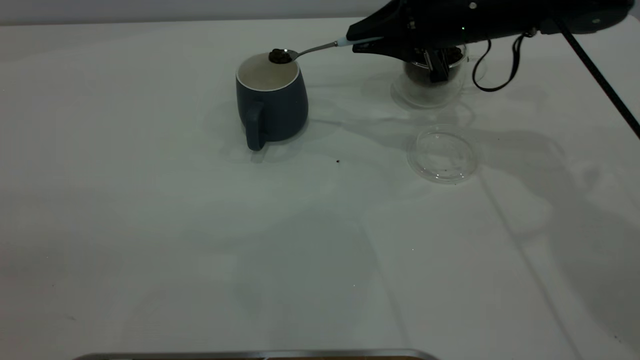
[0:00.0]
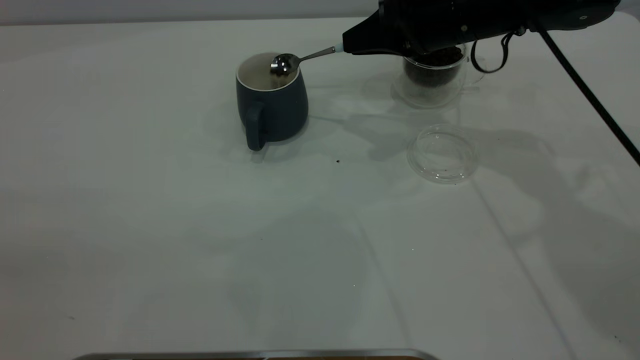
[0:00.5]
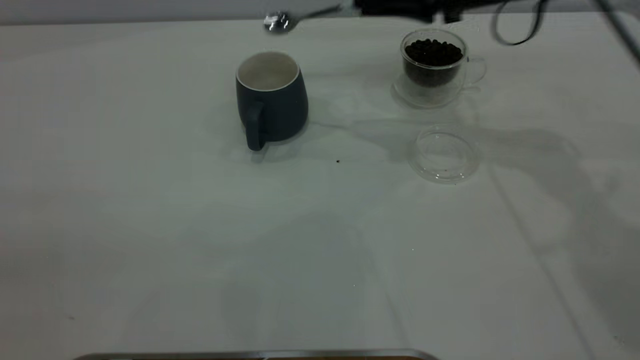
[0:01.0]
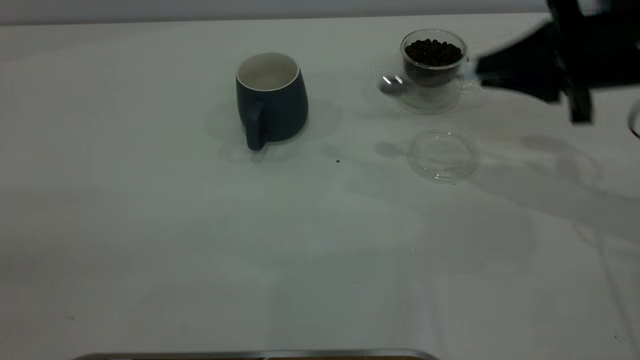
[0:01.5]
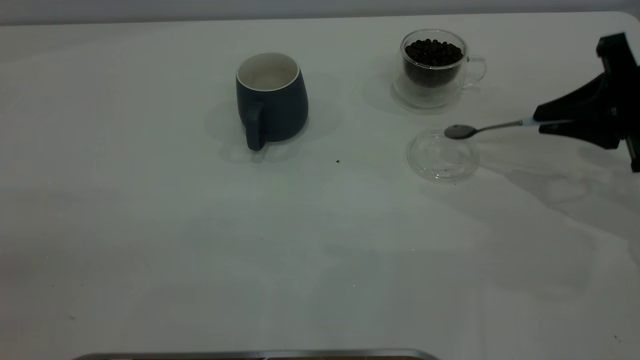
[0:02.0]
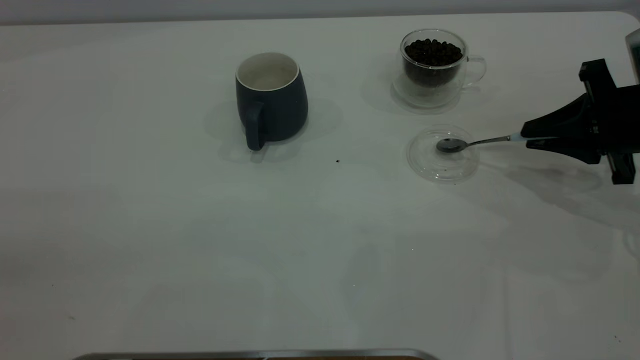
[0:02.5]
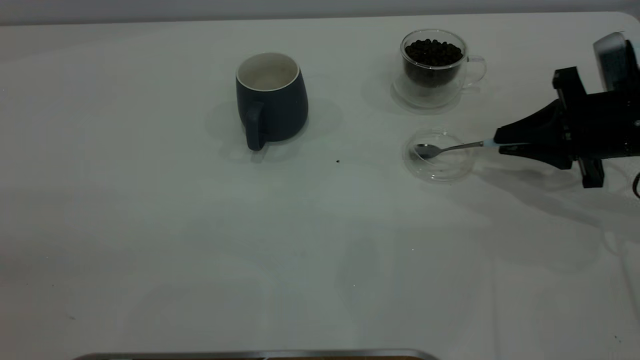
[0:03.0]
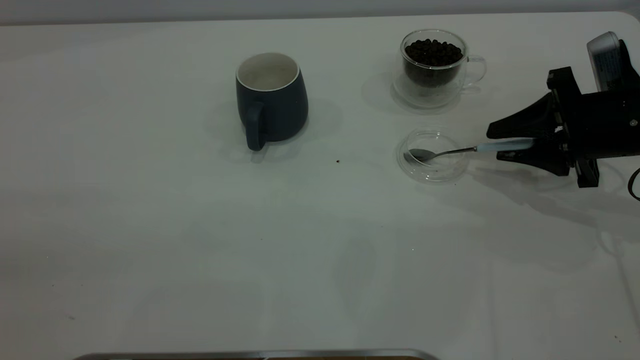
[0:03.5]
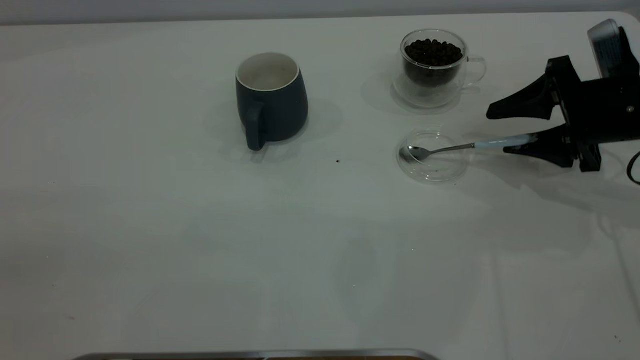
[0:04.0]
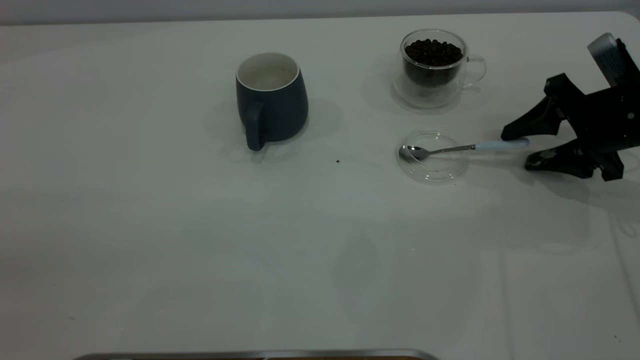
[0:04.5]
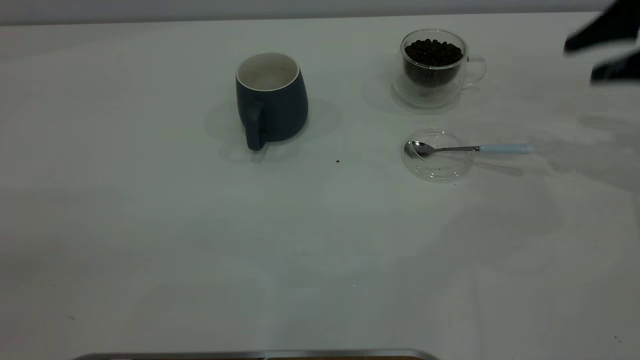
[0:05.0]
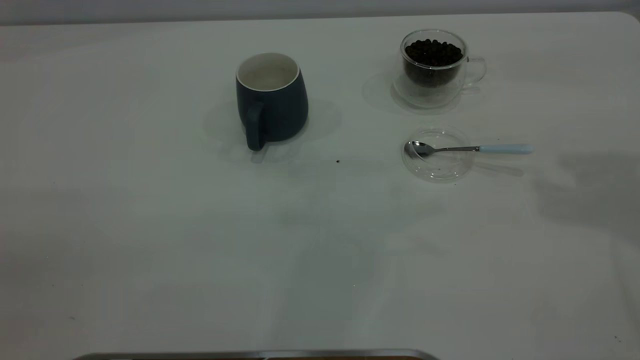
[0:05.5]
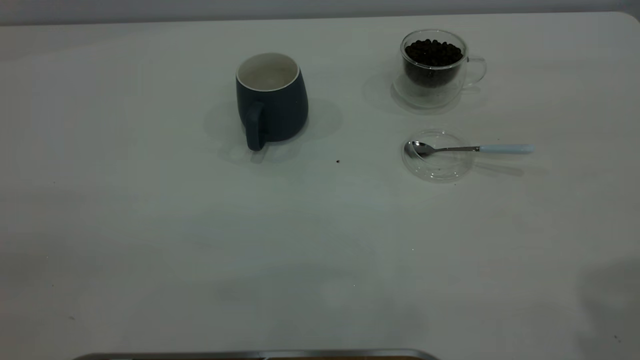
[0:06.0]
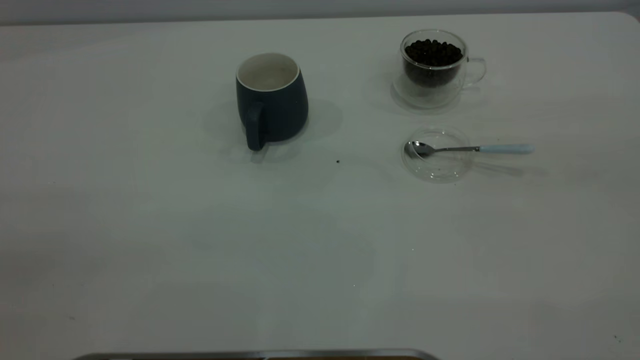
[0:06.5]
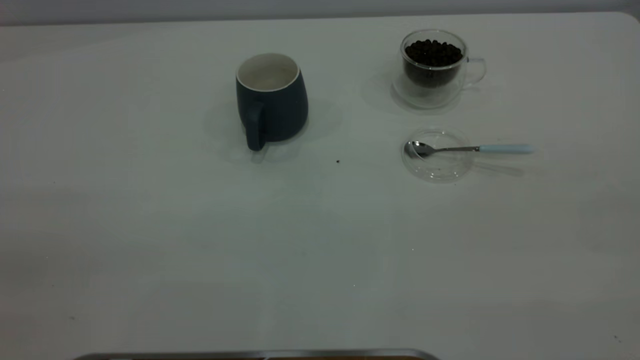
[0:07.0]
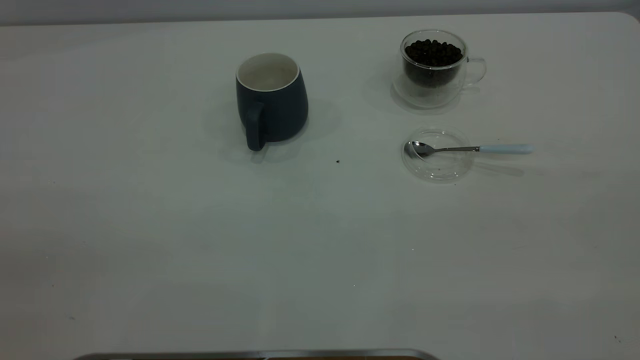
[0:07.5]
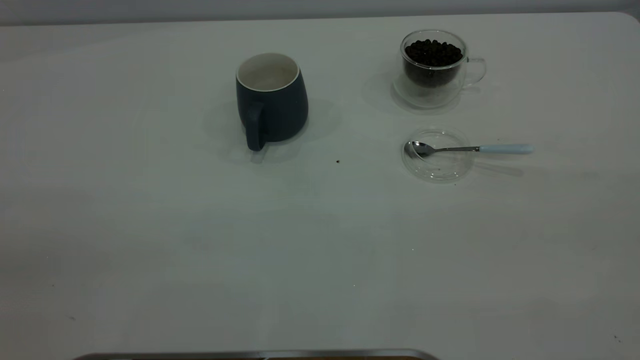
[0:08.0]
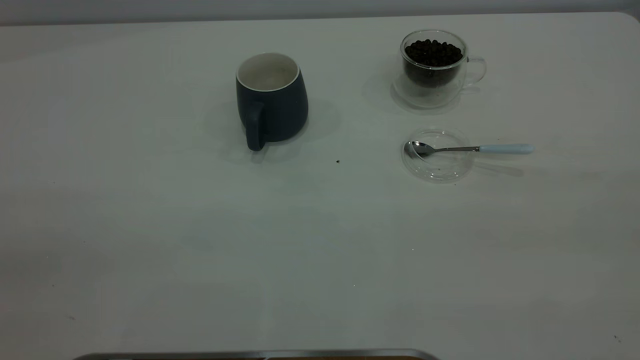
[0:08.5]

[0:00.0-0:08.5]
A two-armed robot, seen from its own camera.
Task of the whole recording: the left gripper place the grey cup in the center of the table, the right gripper take the blue spoon from the cup lid and scoop out the coffee beans from the coffee cup and put them into the grey cup, the right gripper put the spoon back into the cup lid.
Step, 0:01.5 to 0:04.5: Place the spoon back in its original place.
0:00.0 to 0:02.0: The right gripper travels to the right and backward by about 20 cm.
0:02.0 to 0:04.0: The right gripper moves about 5 cm, and opens up.
0:04.0 to 0:06.5: The right gripper is displaced upward and backward by about 40 cm.

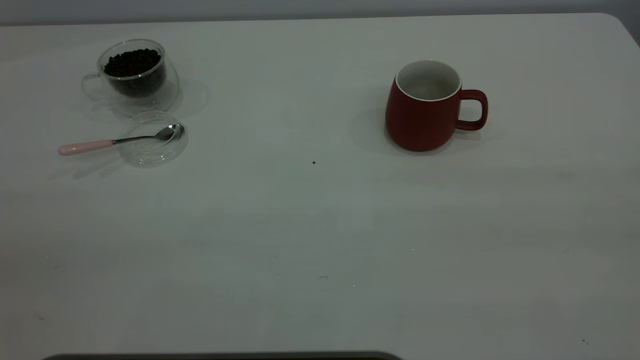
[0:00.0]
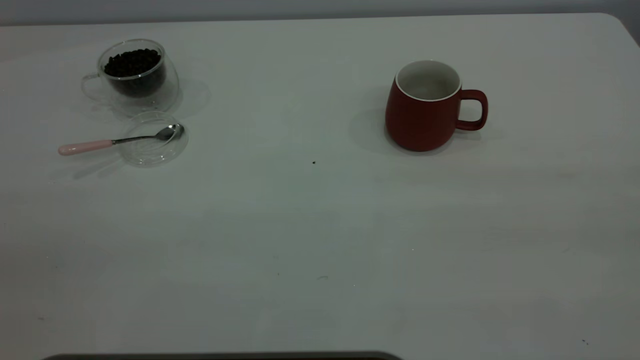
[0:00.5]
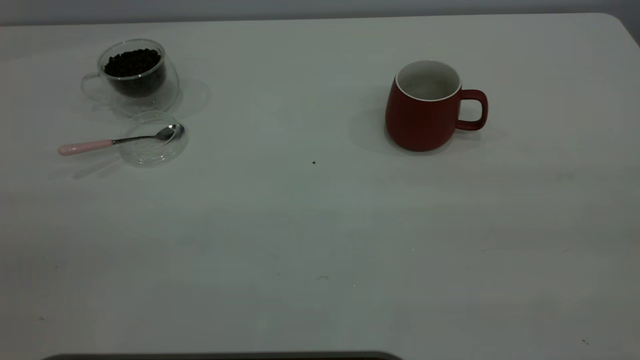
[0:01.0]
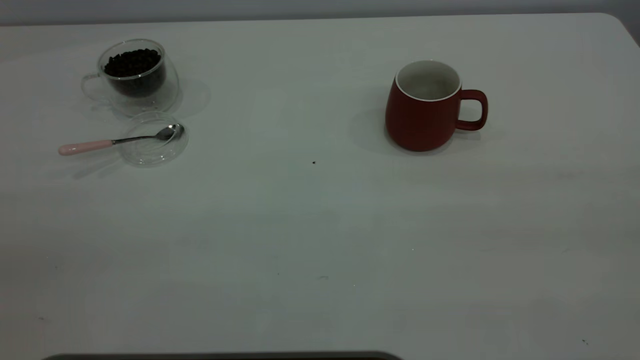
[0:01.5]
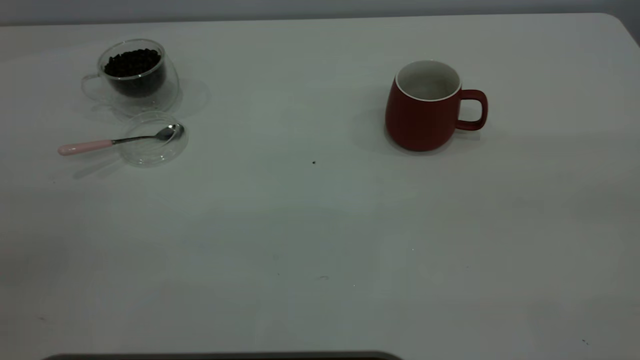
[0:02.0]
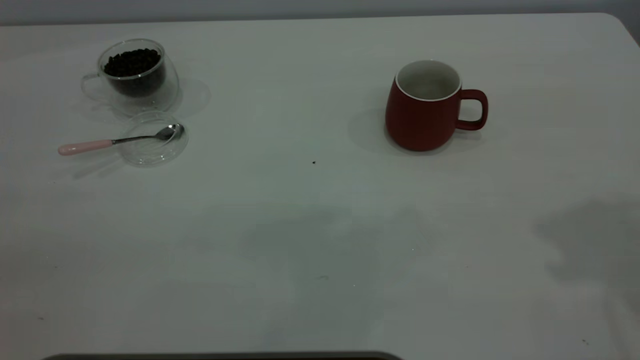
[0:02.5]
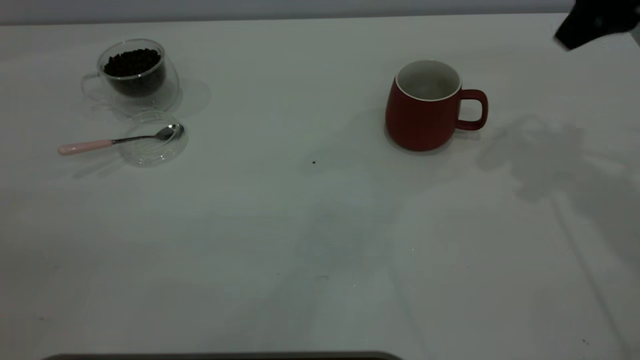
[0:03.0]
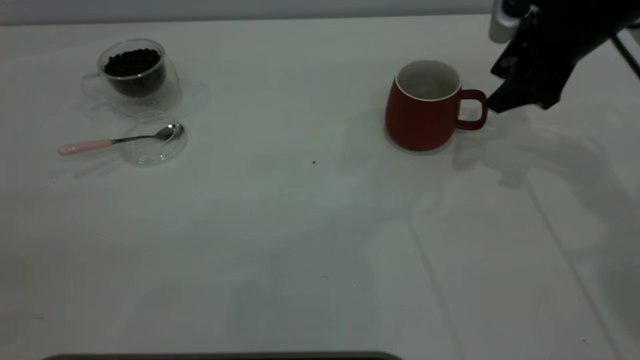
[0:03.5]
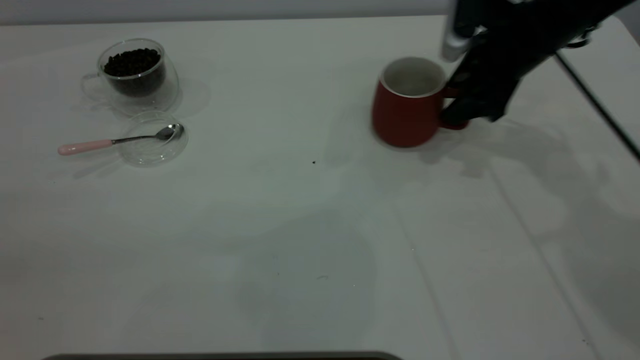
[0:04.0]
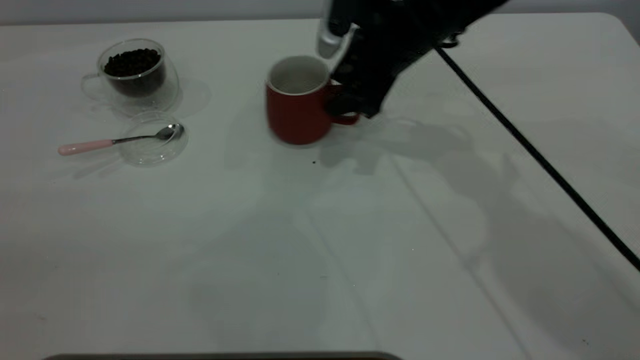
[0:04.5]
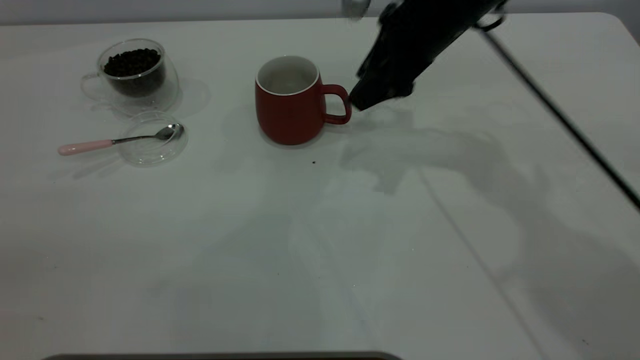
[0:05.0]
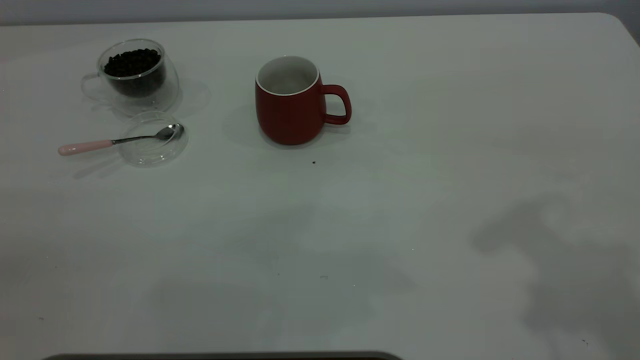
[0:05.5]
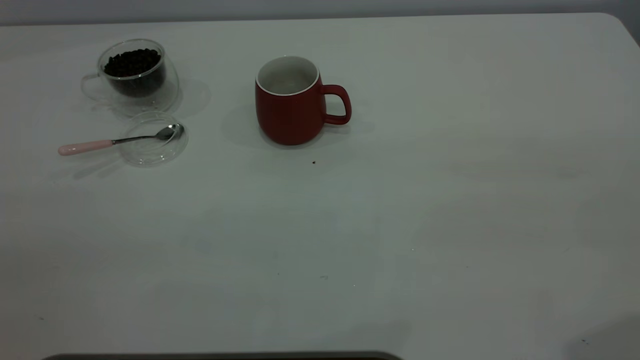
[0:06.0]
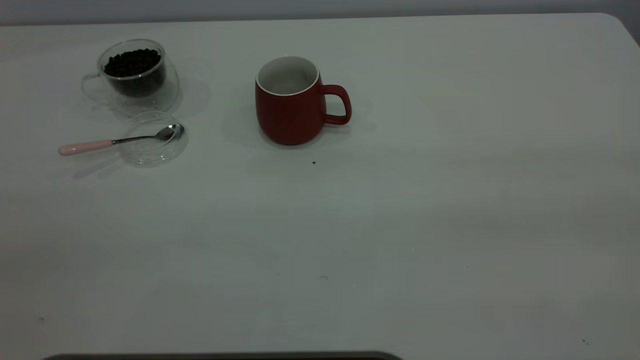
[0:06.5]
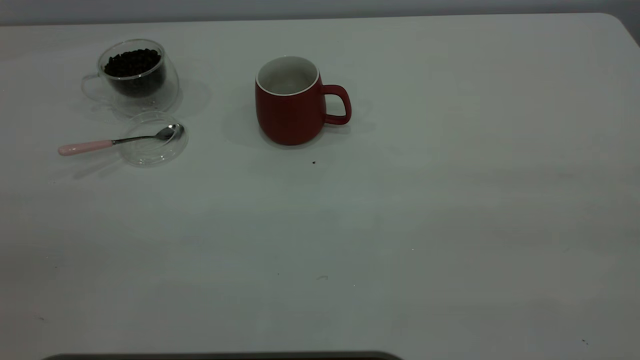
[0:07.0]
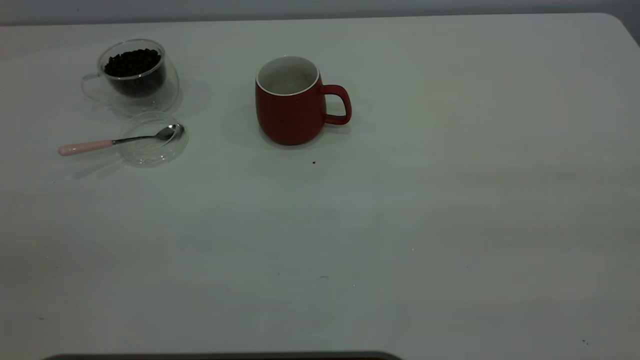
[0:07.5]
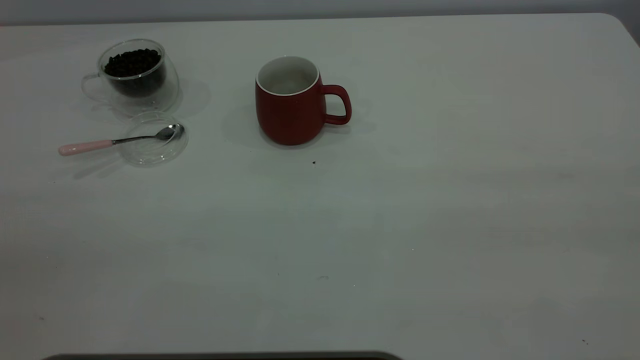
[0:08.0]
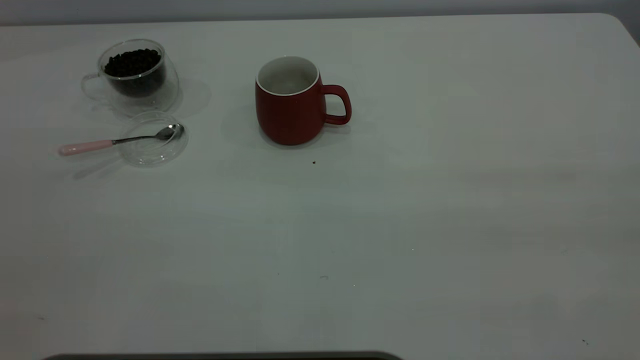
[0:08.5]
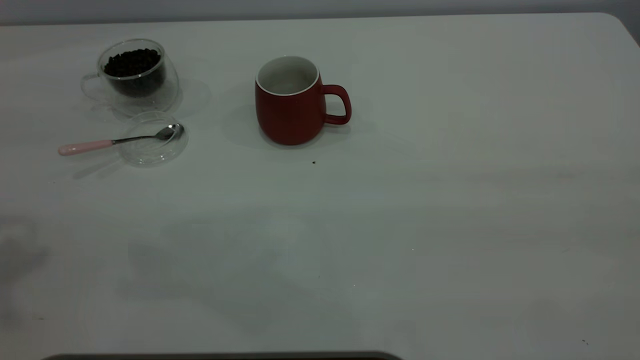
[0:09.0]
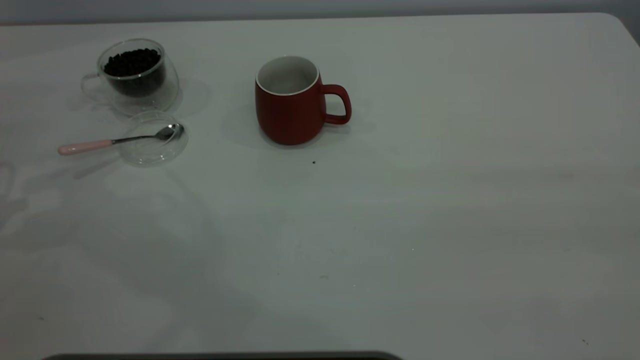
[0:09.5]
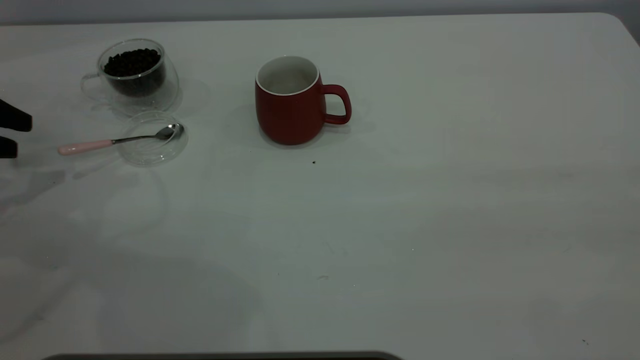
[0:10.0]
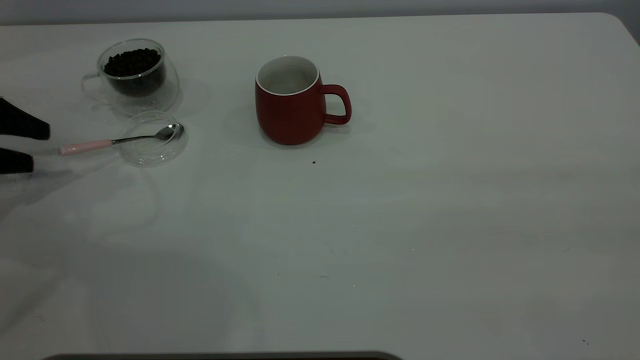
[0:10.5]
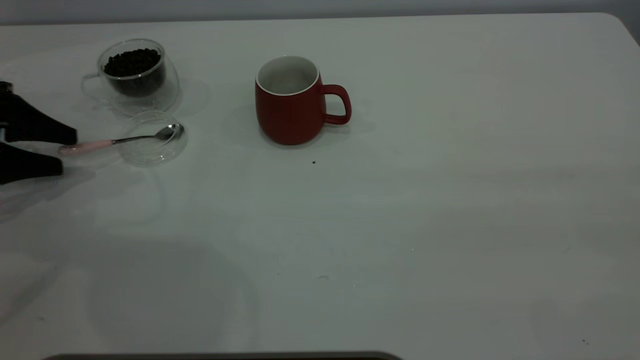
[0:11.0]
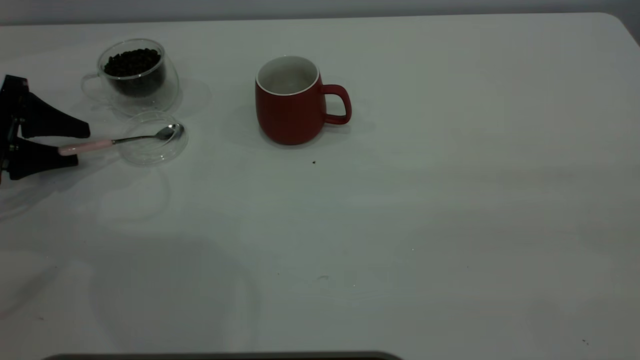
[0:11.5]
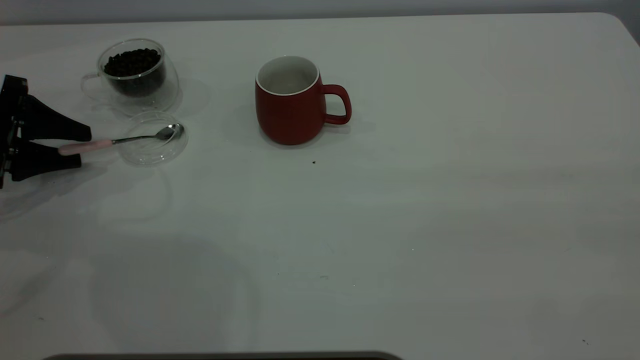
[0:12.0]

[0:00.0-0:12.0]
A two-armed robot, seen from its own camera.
Task of the whole recording: the right gripper place the red cup in the center of the table, the left gripper take the pink spoon from the cup lid and scoop out the coffee beans from the coffee cup and put them into the red cup, the left gripper put the spoon back into the cup lid.
Step, 0:00.0 to 0:05.0: Move the cup to the center of view.
0:02.0 to 0:04.0: The right gripper shifts approximately 50 cm forward and downward.
0:04.0 to 0:06.0: The right gripper moves backward and upward, approximately 40 cm.
0:08.0 to 0:10.0: The left gripper heads forward and downward, covering approximately 40 cm.
0:10.0 to 0:12.0: The left gripper changes place by roughly 5 cm.
